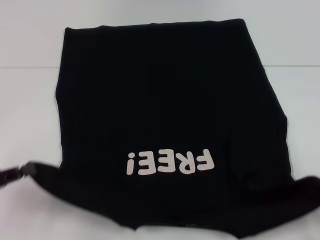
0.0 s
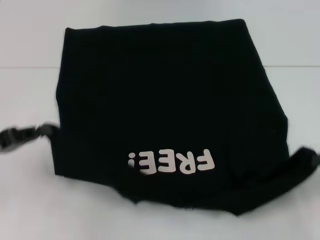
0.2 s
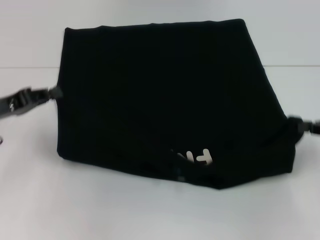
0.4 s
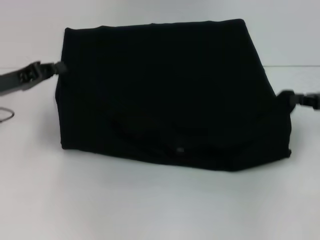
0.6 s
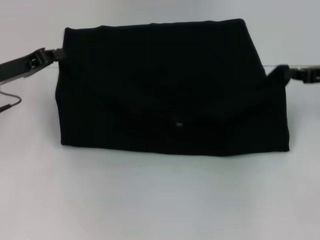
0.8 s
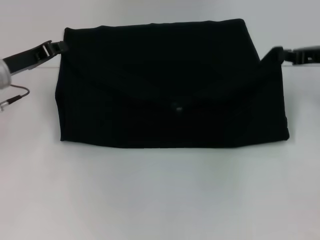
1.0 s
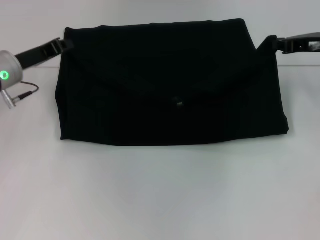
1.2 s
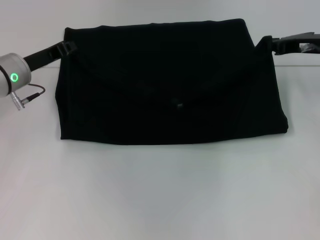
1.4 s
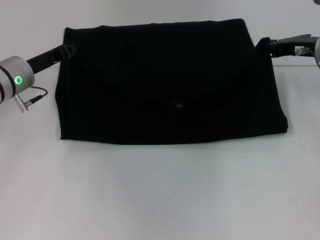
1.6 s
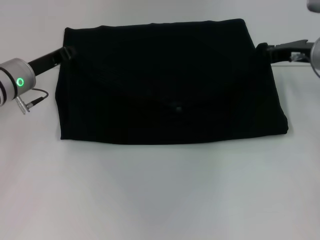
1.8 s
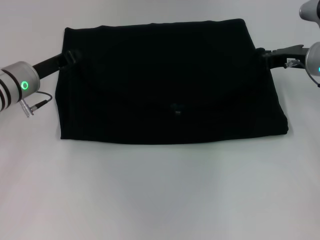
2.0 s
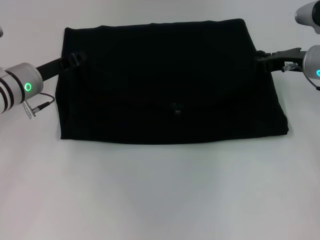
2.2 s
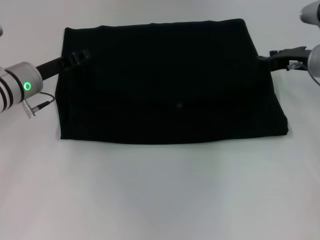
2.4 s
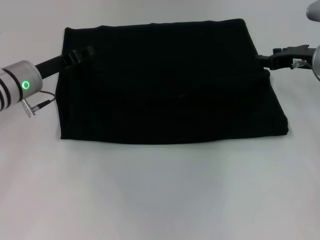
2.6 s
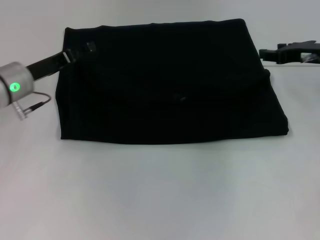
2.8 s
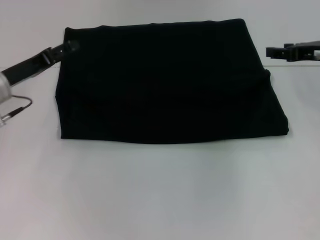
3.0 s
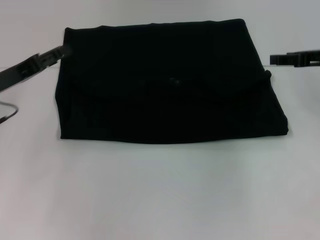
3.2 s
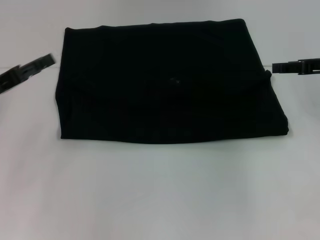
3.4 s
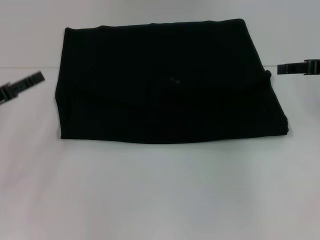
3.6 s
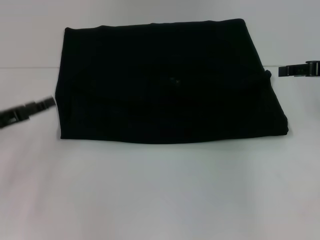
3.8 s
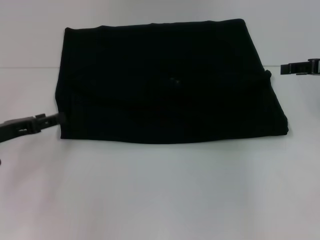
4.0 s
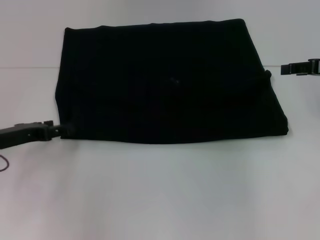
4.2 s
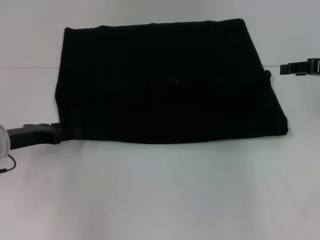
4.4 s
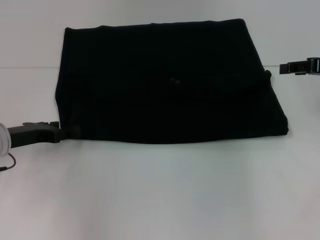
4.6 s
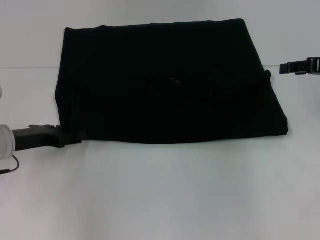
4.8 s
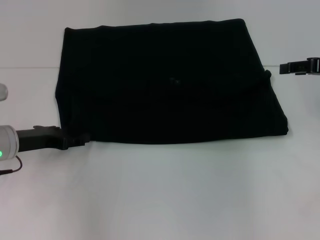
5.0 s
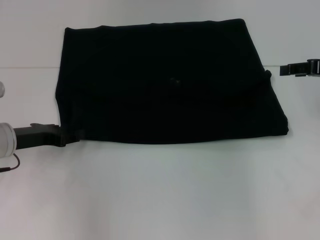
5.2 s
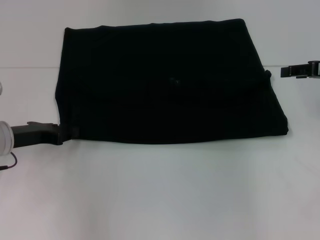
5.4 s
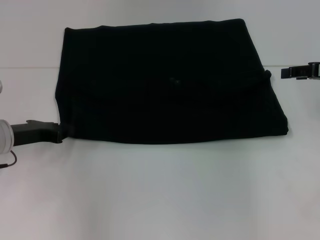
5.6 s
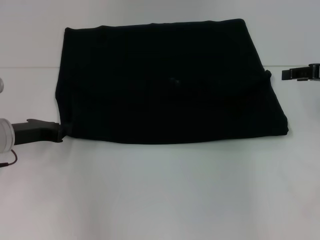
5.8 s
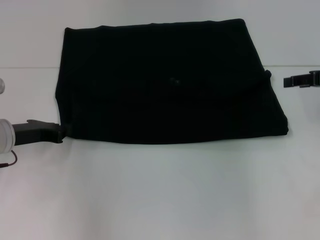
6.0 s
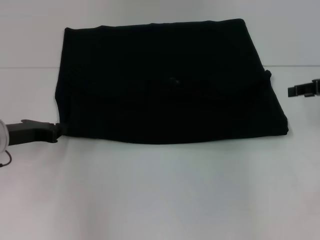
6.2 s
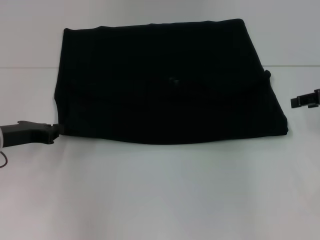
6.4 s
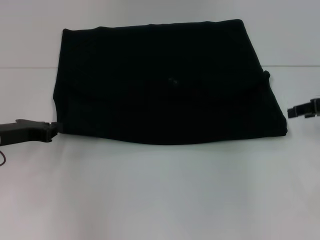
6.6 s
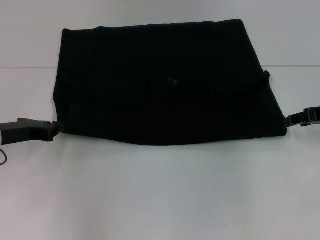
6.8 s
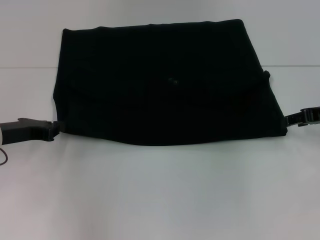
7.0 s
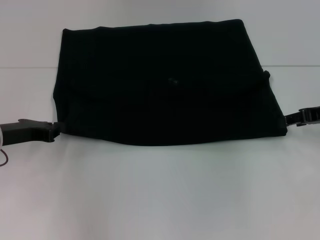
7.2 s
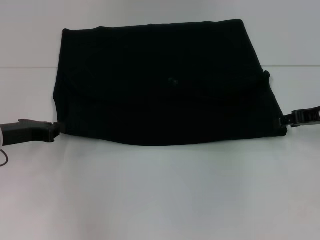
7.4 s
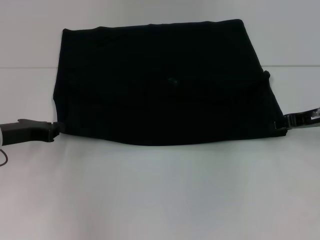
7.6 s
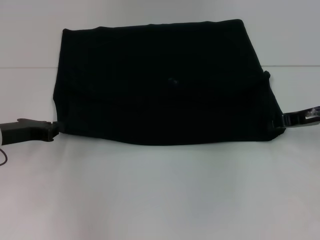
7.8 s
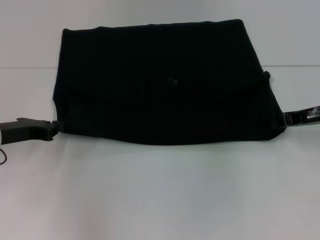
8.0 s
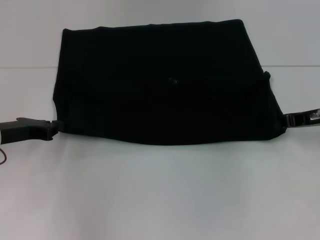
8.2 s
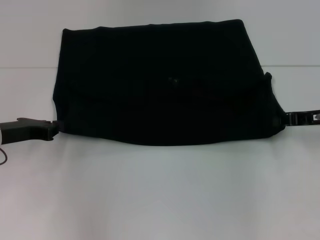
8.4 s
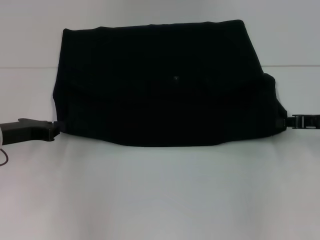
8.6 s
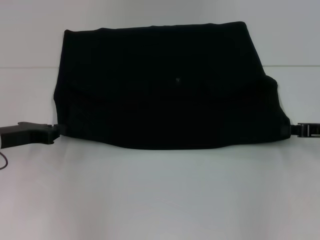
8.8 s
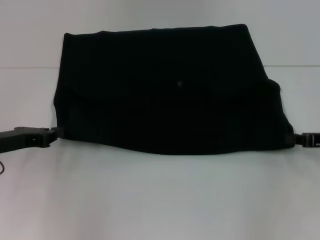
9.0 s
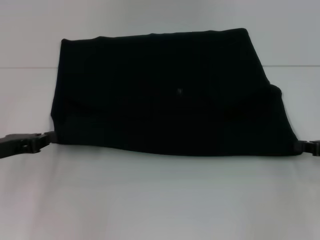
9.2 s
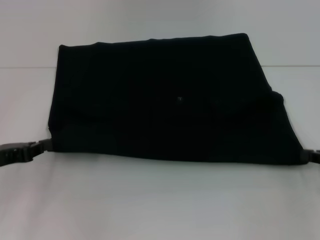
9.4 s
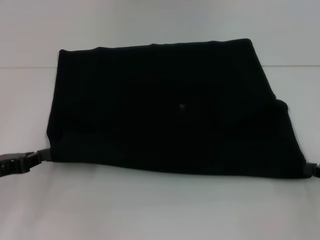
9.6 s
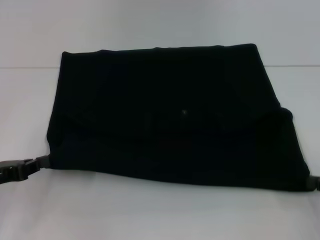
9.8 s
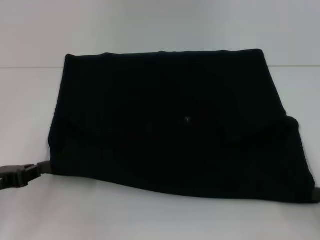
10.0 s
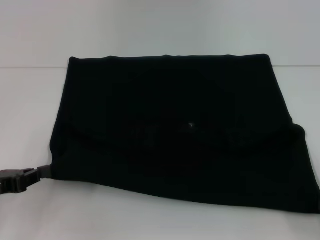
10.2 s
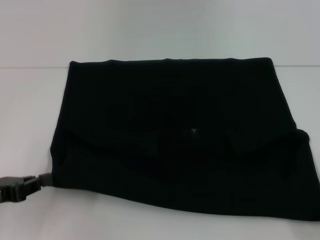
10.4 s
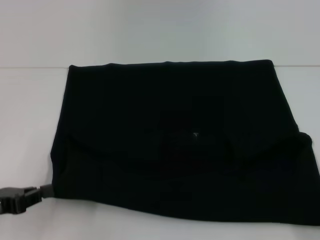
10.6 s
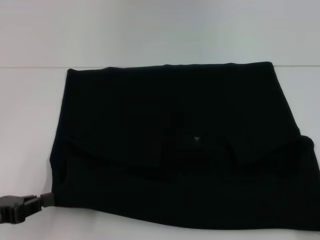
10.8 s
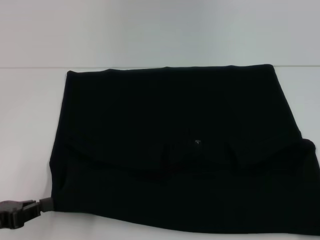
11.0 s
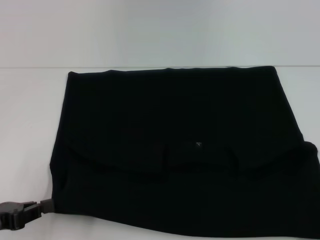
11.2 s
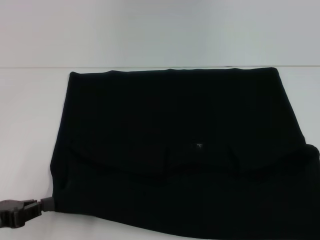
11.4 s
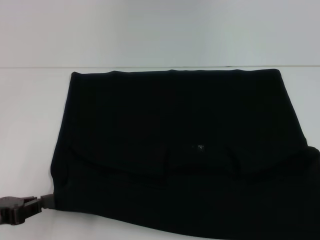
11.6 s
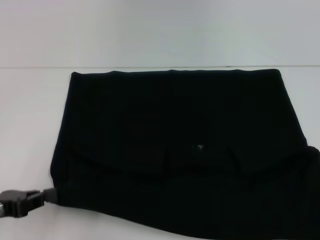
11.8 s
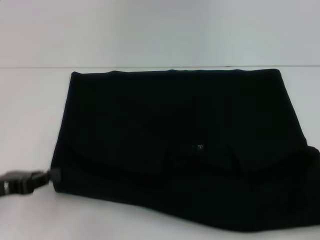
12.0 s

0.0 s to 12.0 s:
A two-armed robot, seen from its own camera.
Step, 0.0 to 2.6 s: Fold the clothes with your left hand.
Step, 0.0 to 2.6 s: Fold the clothes with your right hand.
Step, 2.8 to 11.6 s: Pull the clothes with your left hand.
Step, 2.8 to 11.6 s: Pull the clothes with your right hand.
0.0 to 1.6 s: The right gripper goes approximately 25 cm forward and to the left, while the left gripper shifts approximately 25 cm forward and to the right.
1.6 to 3.0 s: The right gripper opens. The left gripper opens up.
3.0 to 4.4 s: The left gripper shifts by some 5 cm.
4.4 to 6.0 s: The left gripper closes its fingers.
6.0 to 7.6 s: The right gripper heads downward, covering about 5 cm.
7.6 to 9.0 s: The right gripper shifts approximately 5 cm backward, and closes its fingers.
9.0 to 10.4 s: The right gripper is displaced backward by some 15 cm; the left gripper heads backward, covering about 10 cm.
10.4 to 12.0 s: The grippers move only a little.

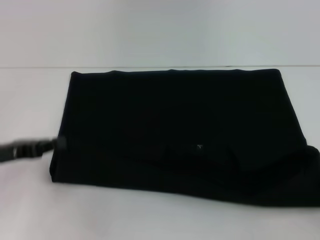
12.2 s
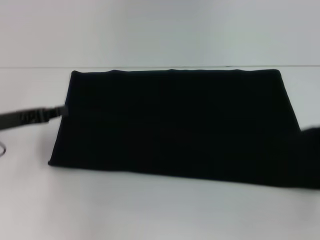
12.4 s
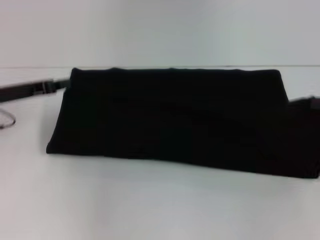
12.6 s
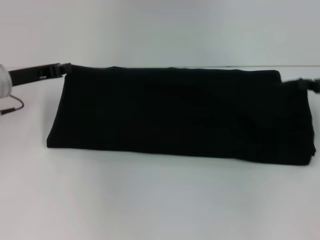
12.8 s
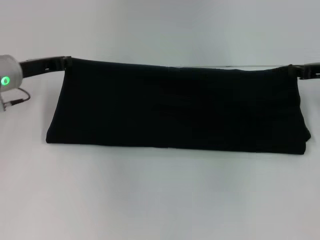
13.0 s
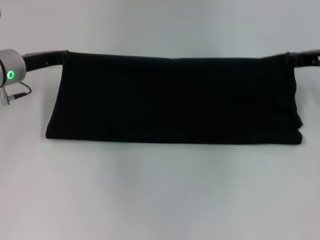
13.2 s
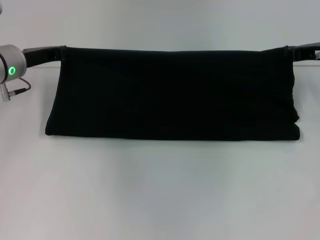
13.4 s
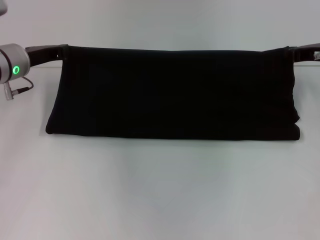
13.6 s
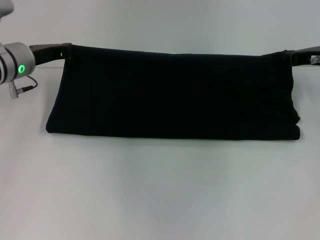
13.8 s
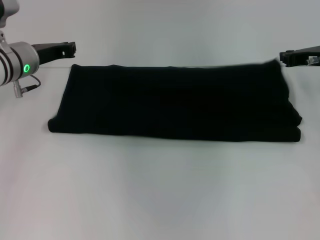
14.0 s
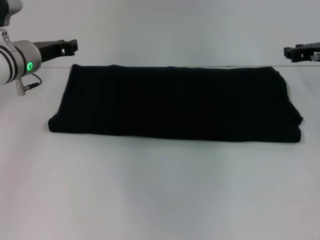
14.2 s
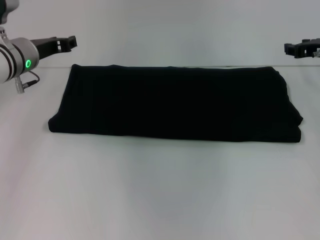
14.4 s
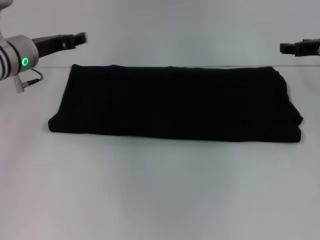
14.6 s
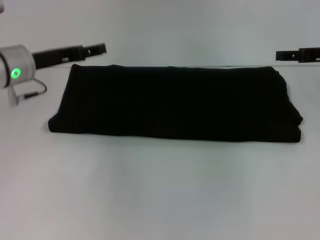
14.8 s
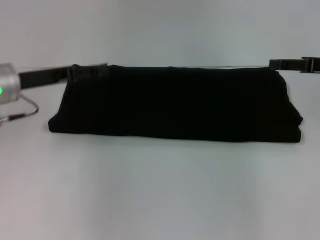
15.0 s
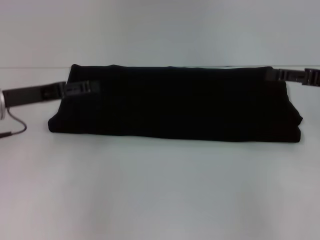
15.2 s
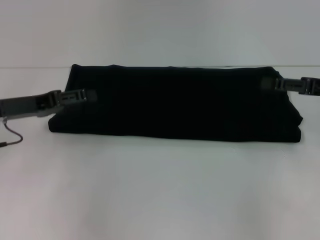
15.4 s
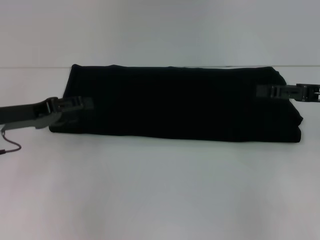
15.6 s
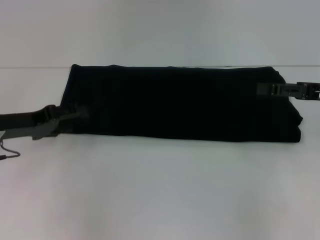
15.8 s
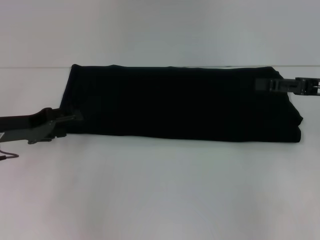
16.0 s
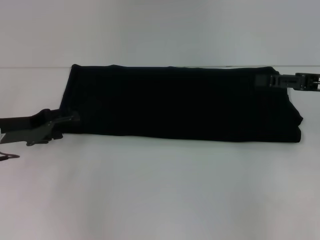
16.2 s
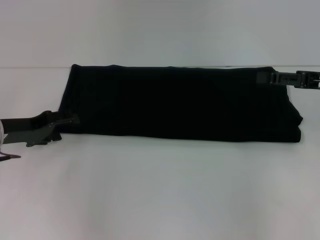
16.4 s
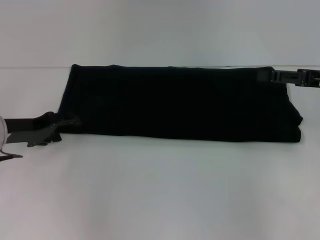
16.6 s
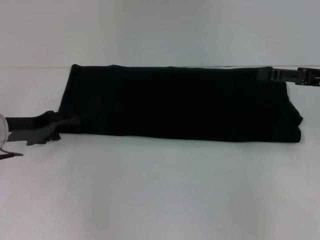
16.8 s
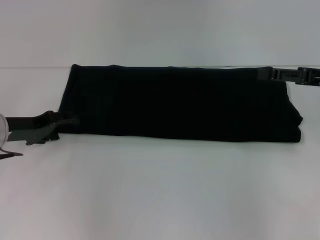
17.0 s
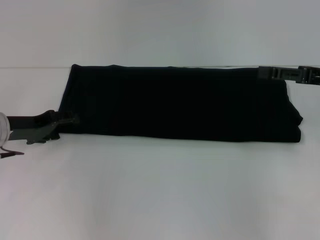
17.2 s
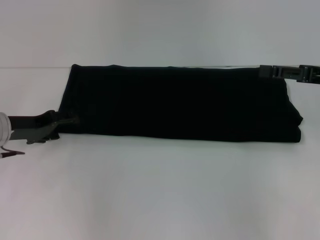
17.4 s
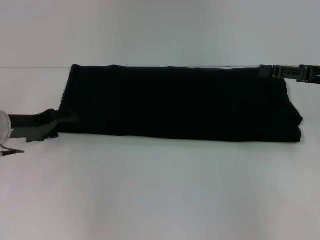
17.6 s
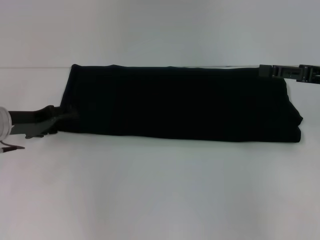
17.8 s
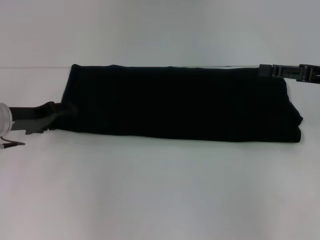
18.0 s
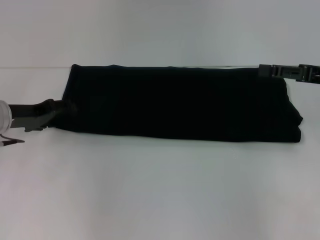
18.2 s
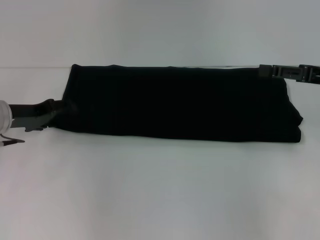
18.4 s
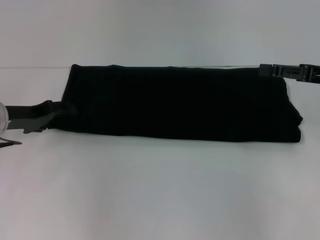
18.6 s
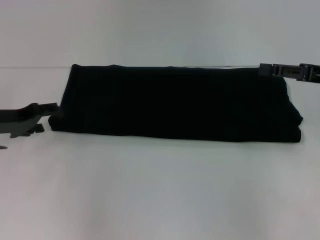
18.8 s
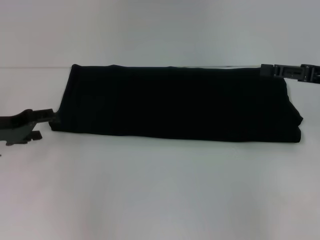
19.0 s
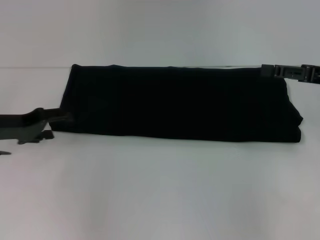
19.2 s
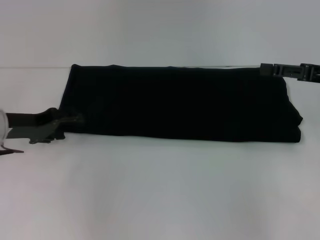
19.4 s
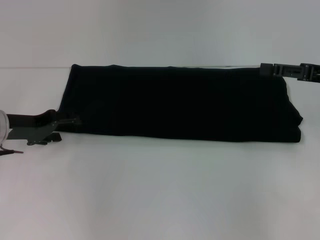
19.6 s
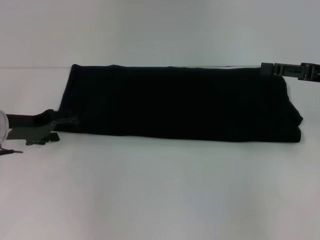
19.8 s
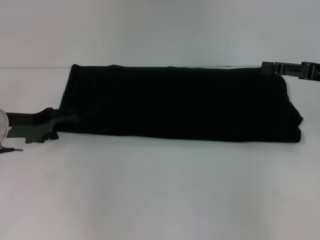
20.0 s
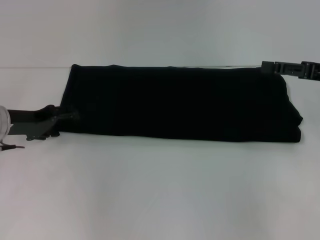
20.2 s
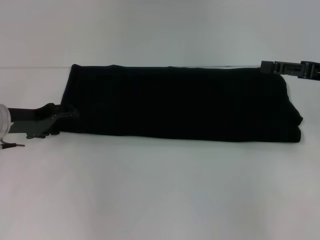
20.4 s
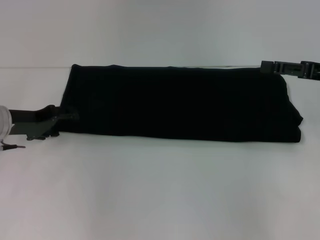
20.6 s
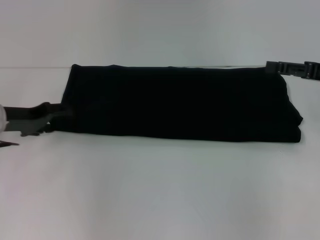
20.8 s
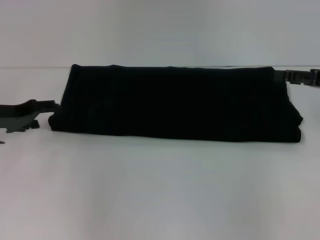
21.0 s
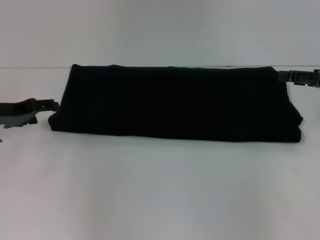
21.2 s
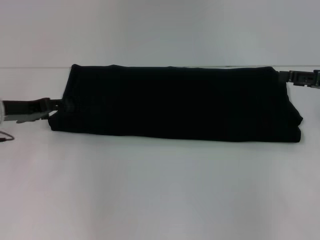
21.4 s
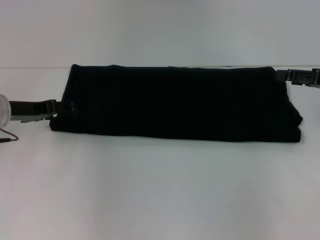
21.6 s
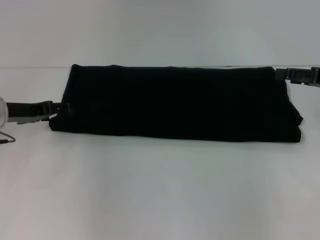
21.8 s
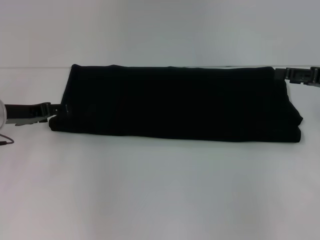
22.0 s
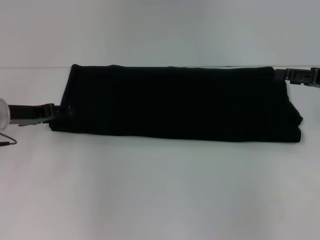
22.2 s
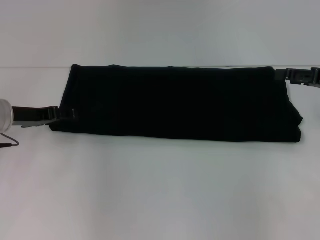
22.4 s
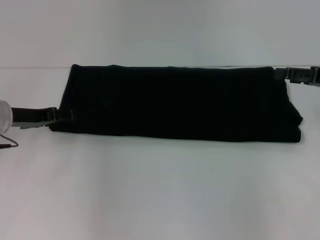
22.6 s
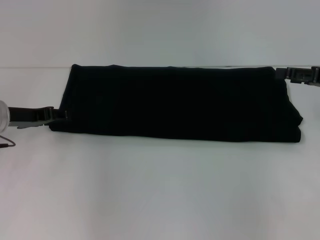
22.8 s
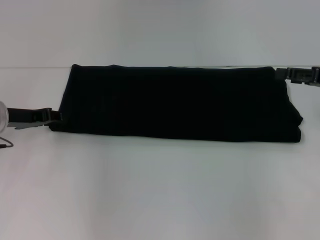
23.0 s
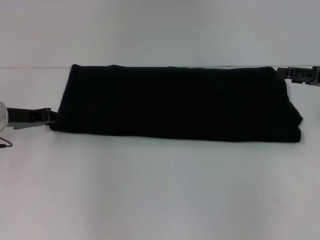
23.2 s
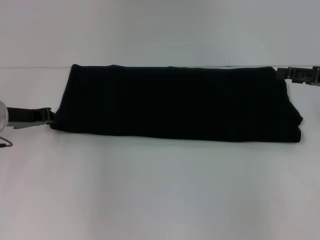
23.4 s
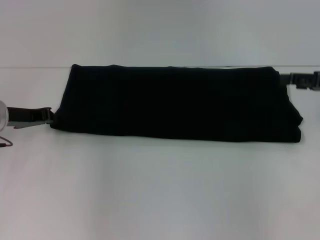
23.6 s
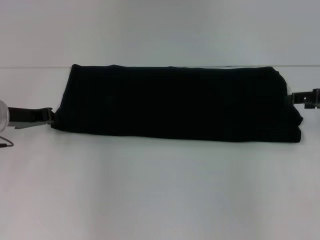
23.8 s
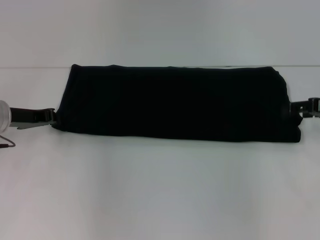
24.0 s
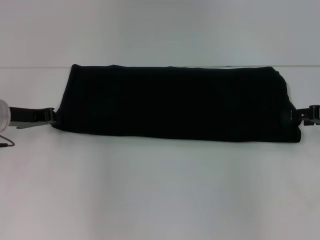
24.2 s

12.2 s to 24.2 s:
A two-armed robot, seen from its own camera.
Step, 12.2 to 14.8 s: Fold the clothes with your right hand.
12.2 to 13.8 s: The left gripper is displaced forward and to the right by roughly 20 cm; the right gripper travels forward and to the left by about 25 cm.
13.8 to 15.2 s: The two grippers go about 10 cm backward. The right gripper opens its fingers, while the left gripper opens up.
15.2 to 16.6 s: The left gripper heads downward, covering some 5 cm.
16.6 to 21.2 s: The grippers make only small movements.
21.2 to 22.6 s: There are only small adjustments of the grippers.
